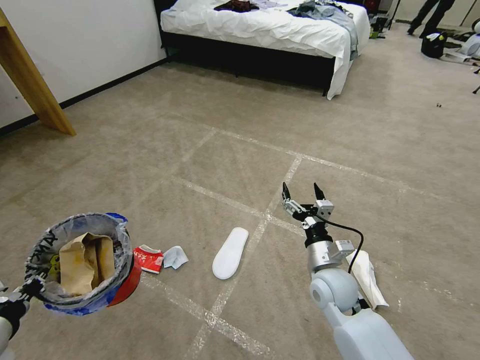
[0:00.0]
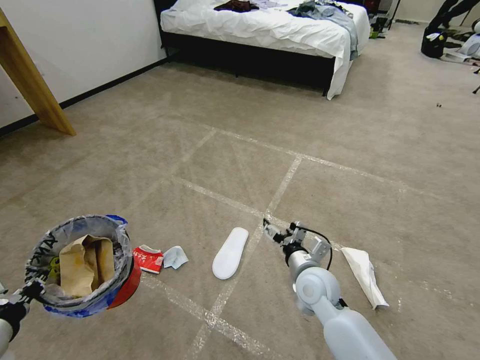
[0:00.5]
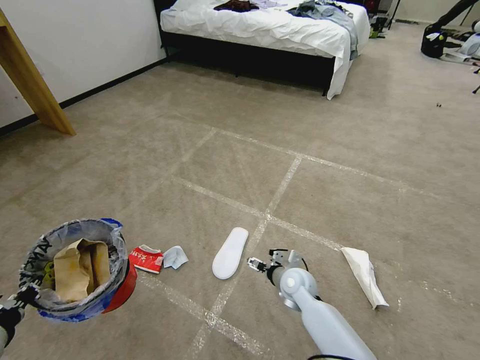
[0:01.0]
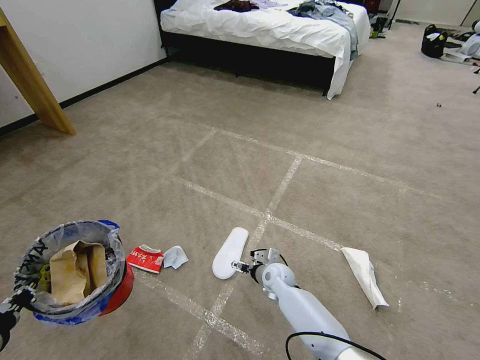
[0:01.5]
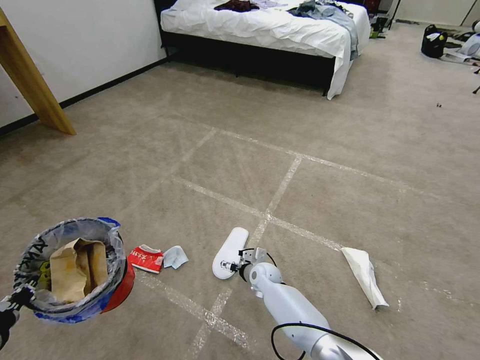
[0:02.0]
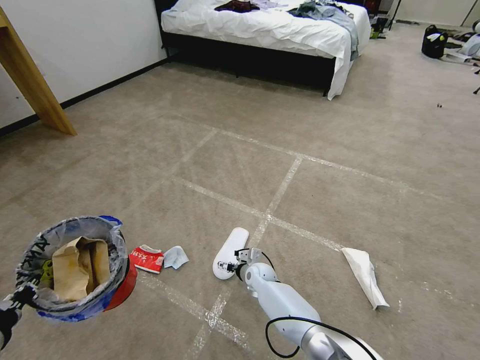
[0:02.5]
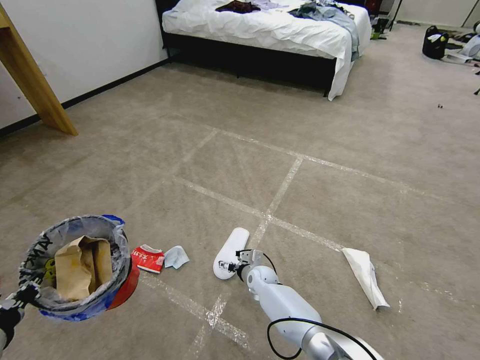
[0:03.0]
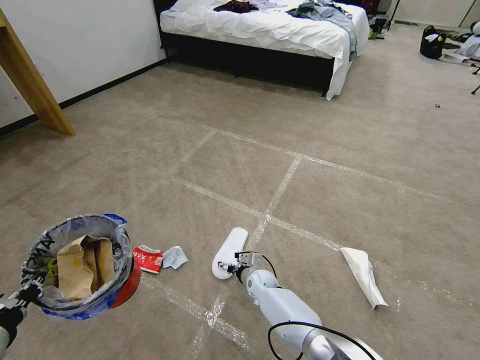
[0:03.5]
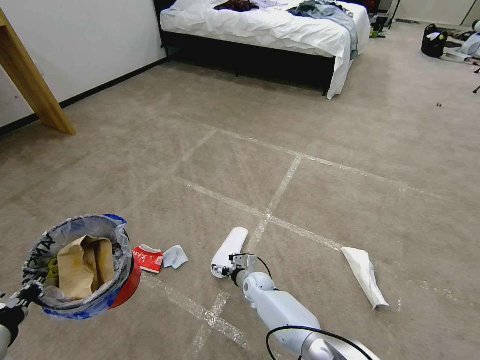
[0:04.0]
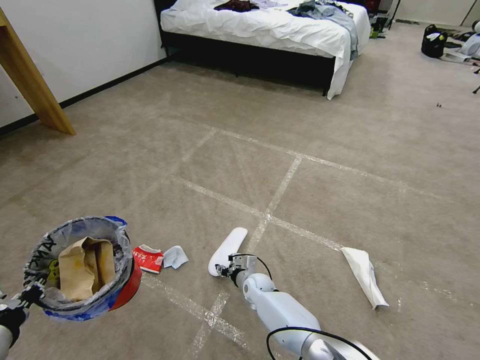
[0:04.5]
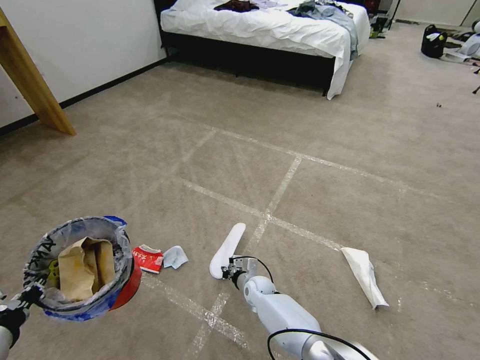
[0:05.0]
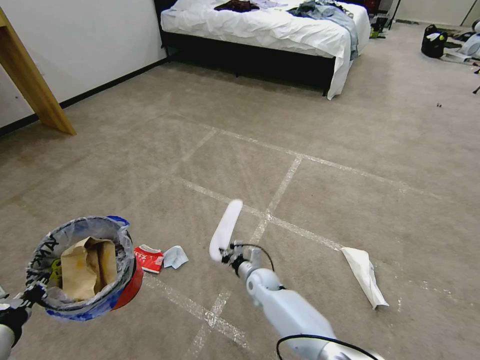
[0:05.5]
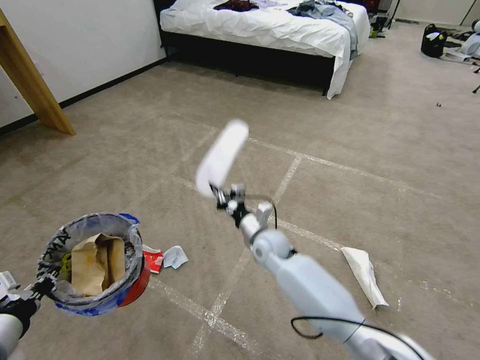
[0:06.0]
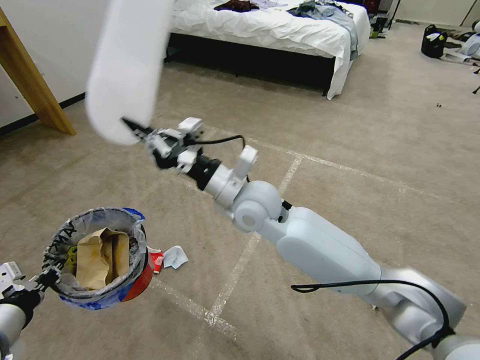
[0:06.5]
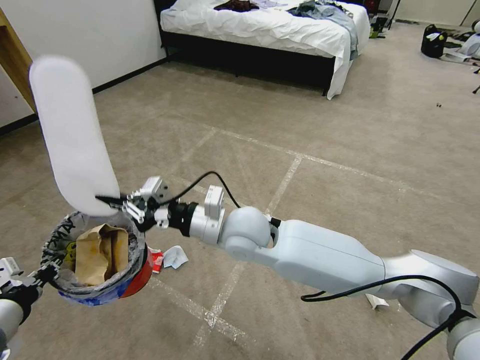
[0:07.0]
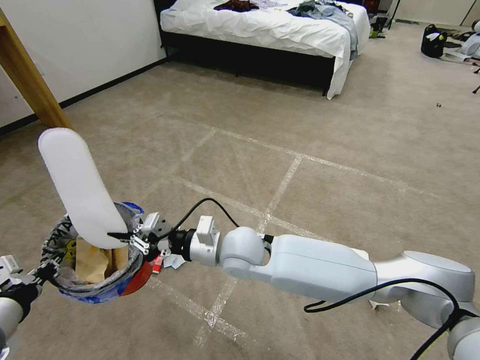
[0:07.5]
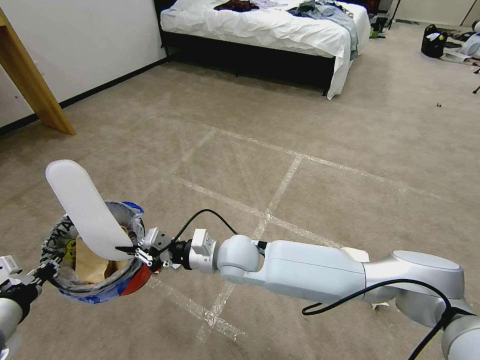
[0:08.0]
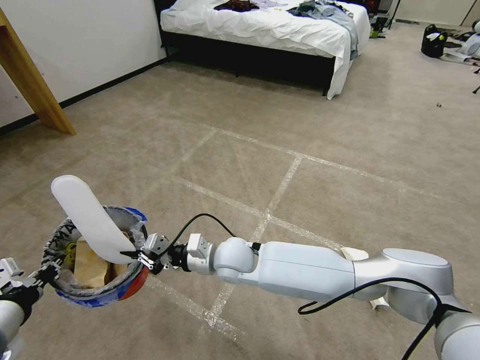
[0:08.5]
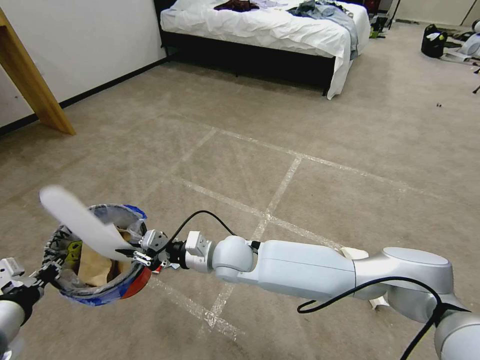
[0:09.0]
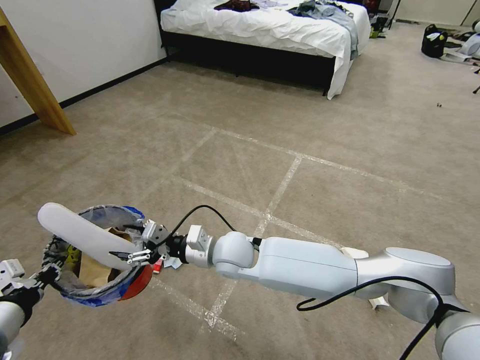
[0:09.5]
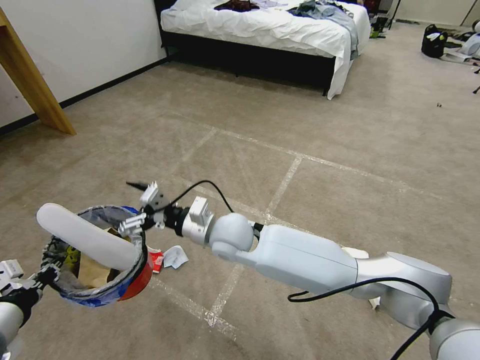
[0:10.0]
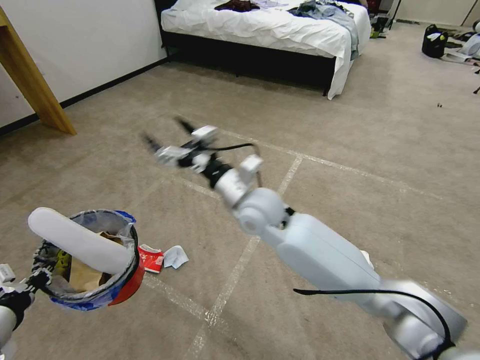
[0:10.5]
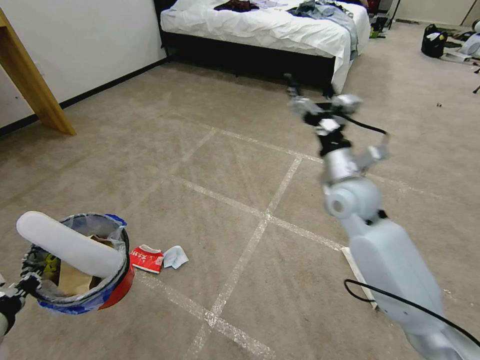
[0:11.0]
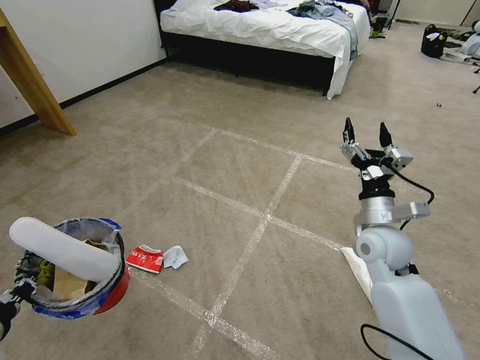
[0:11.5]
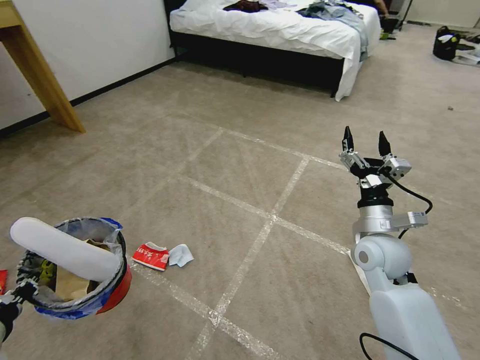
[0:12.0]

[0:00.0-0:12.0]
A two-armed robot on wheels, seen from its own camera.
Task of the whole recording: Pick up the trash bin and place the garbage on the floor into it.
0:00.0 to 0:02.0: The right gripper is displaced downward, to the left and forward by about 25 cm.
0:02.0 to 0:04.0: The grippers stay close to where they were, moving slightly.
0:04.0 to 0:06.0: The right gripper goes about 20 cm upward, and closes.
0:06.0 to 0:08.0: The right gripper travels to the left and backward by roughly 10 cm, and travels upward and back again, roughly 20 cm each way.
0:08.0 to 0:10.0: The right gripper ends up approximately 5 cm from where it was, and opens its fingers.
0:10.0 to 0:12.0: The right gripper moves to the right, approximately 30 cm.

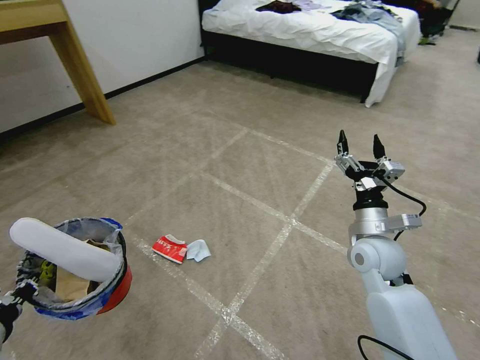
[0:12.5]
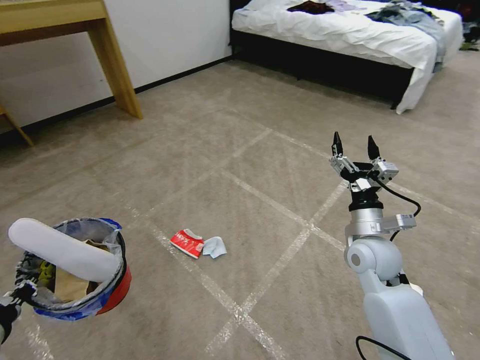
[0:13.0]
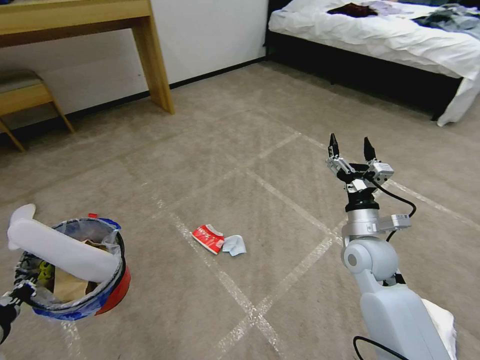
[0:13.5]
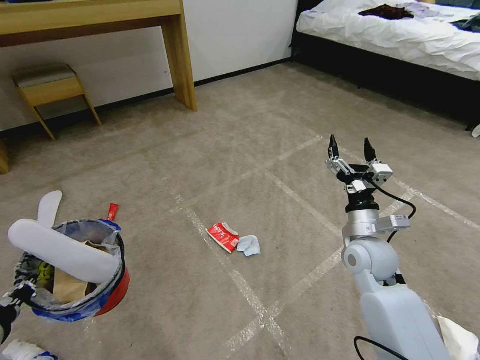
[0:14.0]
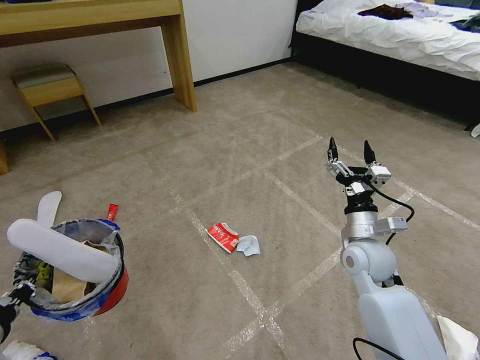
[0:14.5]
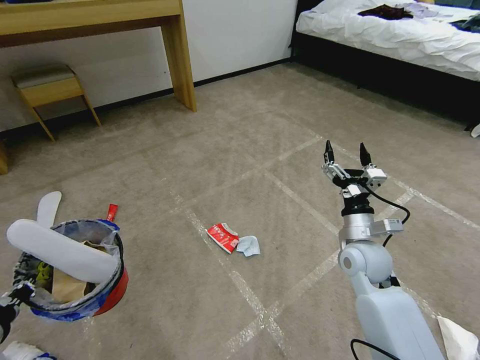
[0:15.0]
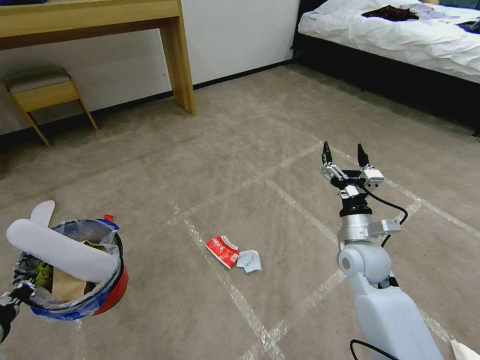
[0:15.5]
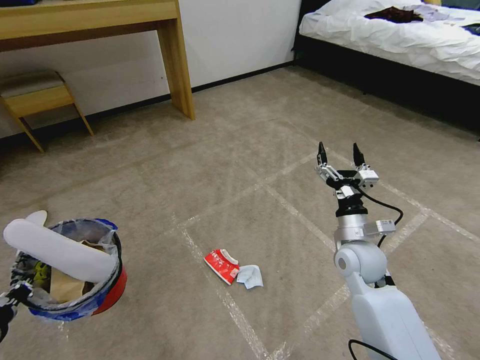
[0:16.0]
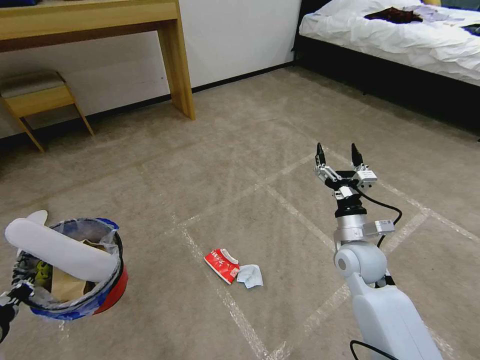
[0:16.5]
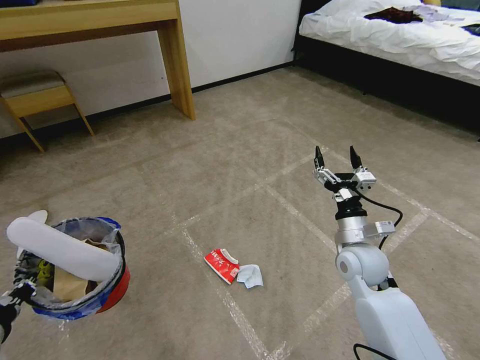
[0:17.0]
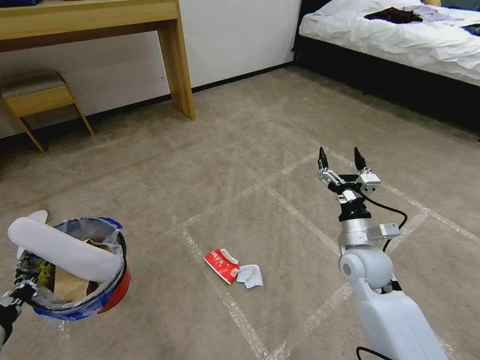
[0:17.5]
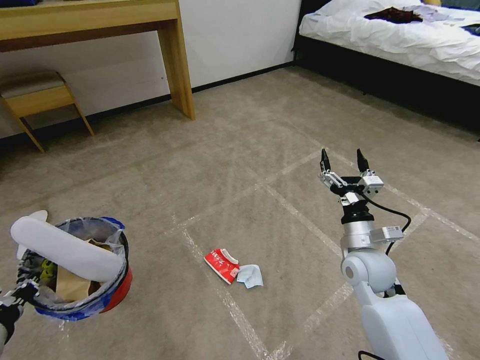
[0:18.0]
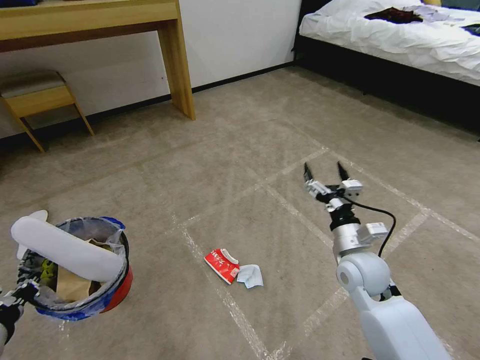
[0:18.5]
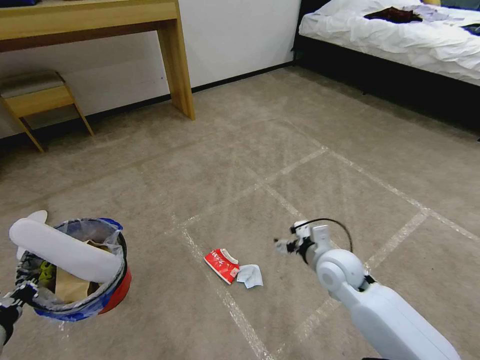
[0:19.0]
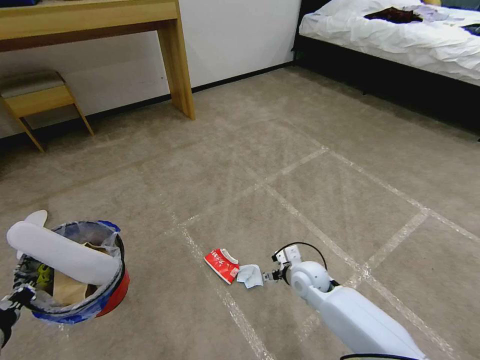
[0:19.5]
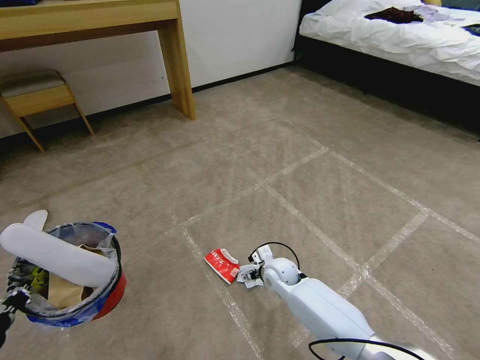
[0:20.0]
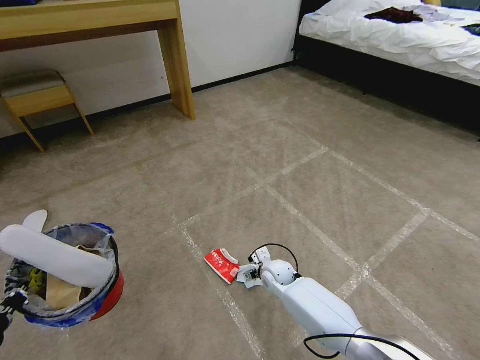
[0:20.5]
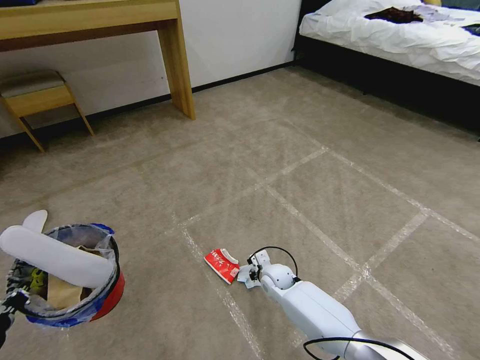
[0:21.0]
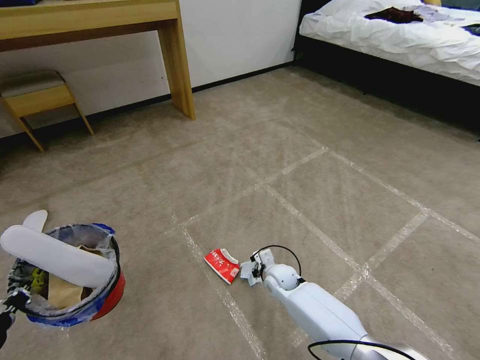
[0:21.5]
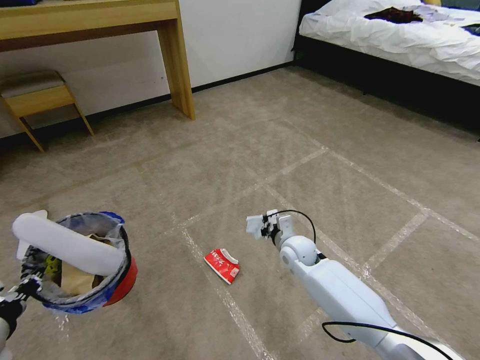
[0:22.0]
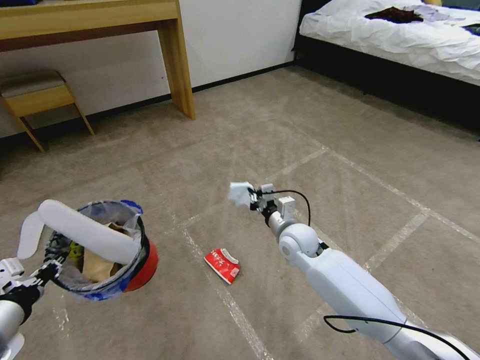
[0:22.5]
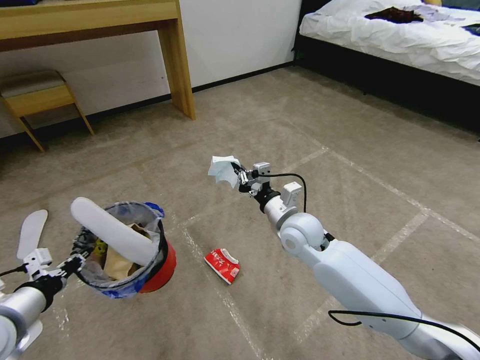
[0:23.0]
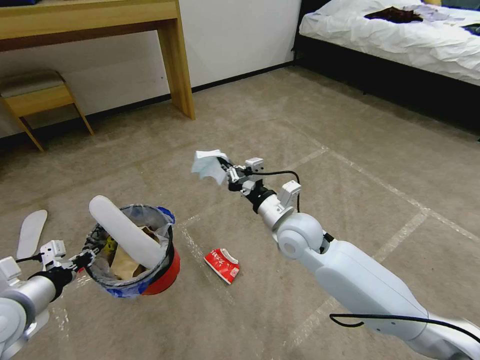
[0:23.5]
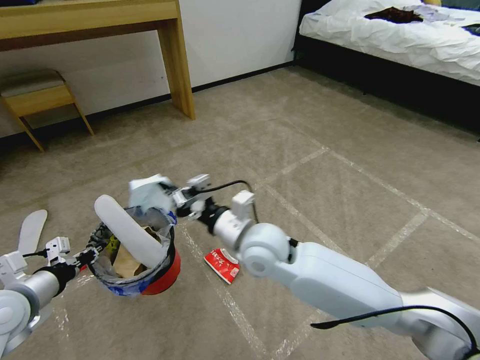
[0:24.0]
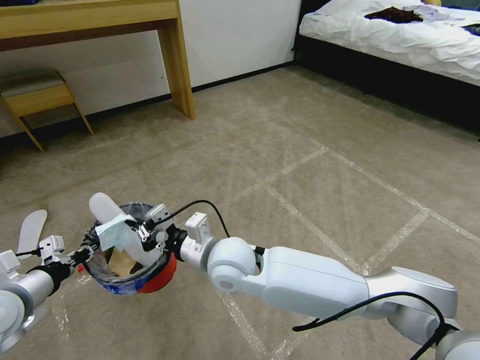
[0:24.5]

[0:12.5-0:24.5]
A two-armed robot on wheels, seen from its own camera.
Task of the whole recording: Pick up the trash bin and place the garbage on the floor into it.
0:14.5 to 0:18.5: There are only small adjustments of the grippers.
0:18.5 to 0:20.5: The right gripper goes approximately 25 cm downward, to the left and forward.
0:20.5 to 0:22.5: The right gripper goes roughly 15 cm upward, and closes.
0:22.5 to 0:24.5: The left gripper is displaced forward by approximately 5 cm. Meanwhile the right gripper goes about 20 cm to the left, backward and upward.

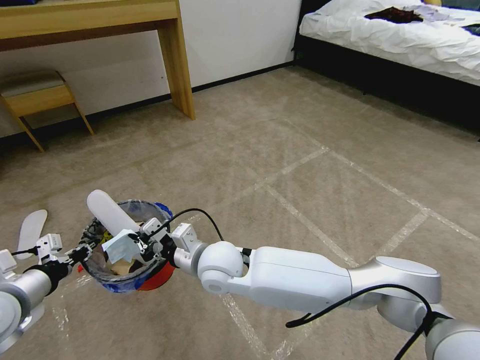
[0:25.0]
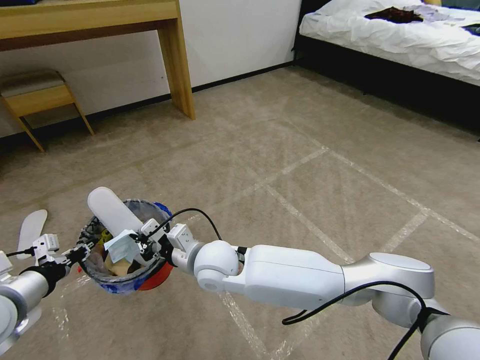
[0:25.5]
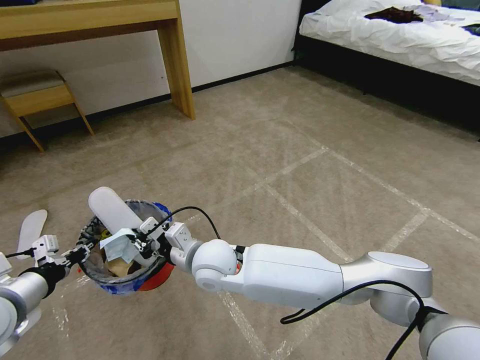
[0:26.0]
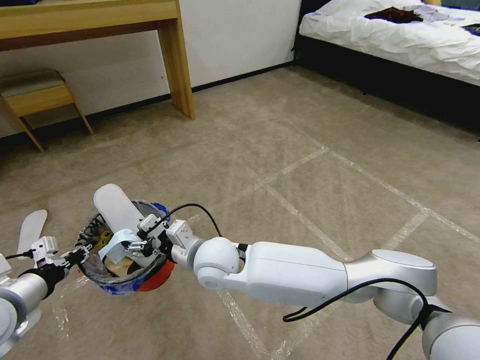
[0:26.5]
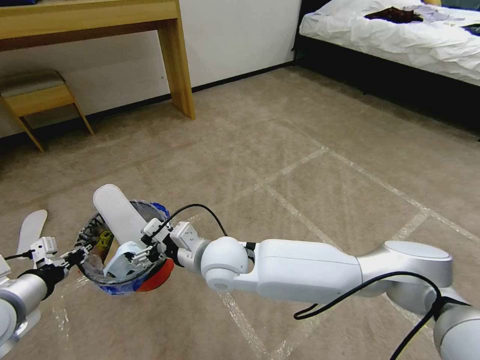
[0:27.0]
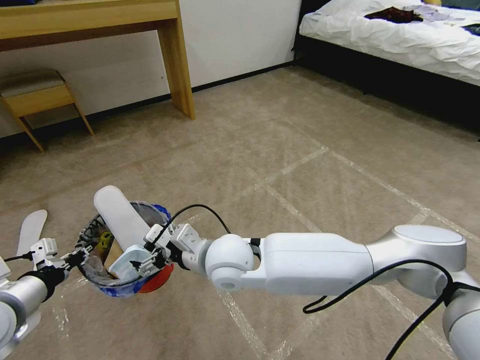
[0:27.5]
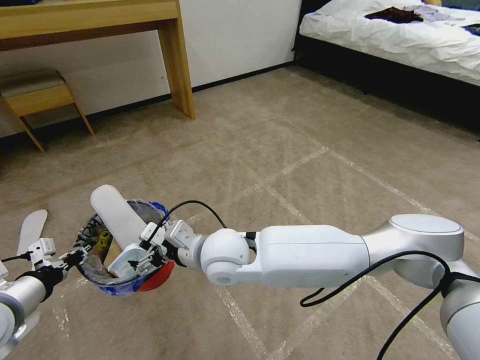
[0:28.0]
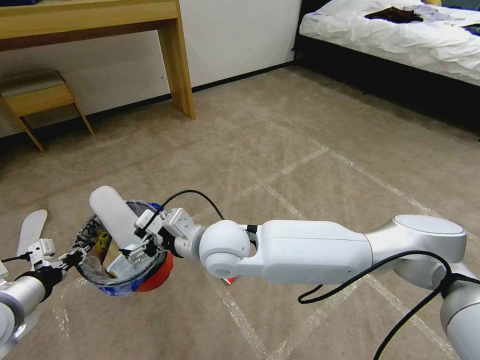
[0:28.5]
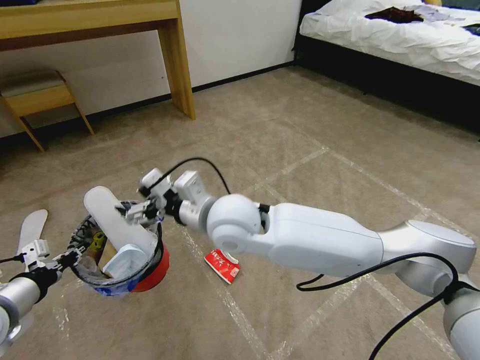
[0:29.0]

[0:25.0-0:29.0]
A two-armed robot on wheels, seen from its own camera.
Task of the whole recording: Pick up the trash bin and place the garbage on the floor into it.
0:25.0 to 0:27.0: The right gripper opens up.
0:27.0 to 0:29.0: The right gripper travels upward by approximately 10 cm.
